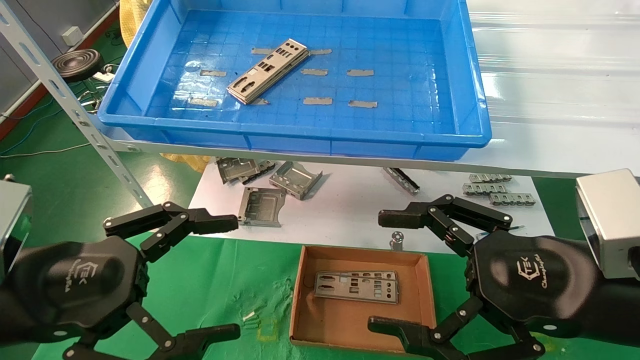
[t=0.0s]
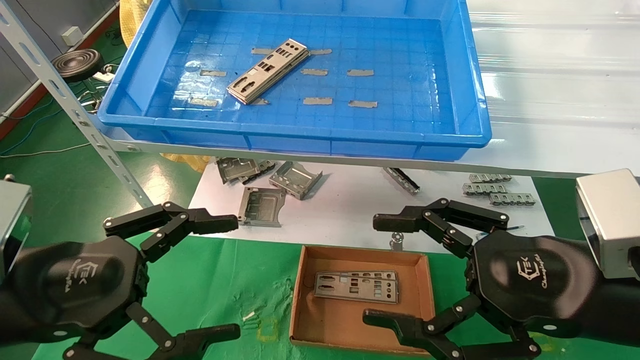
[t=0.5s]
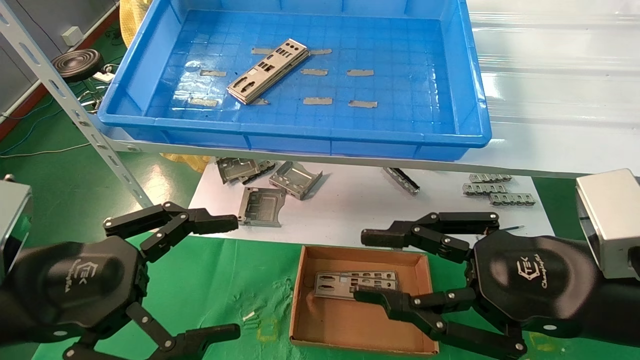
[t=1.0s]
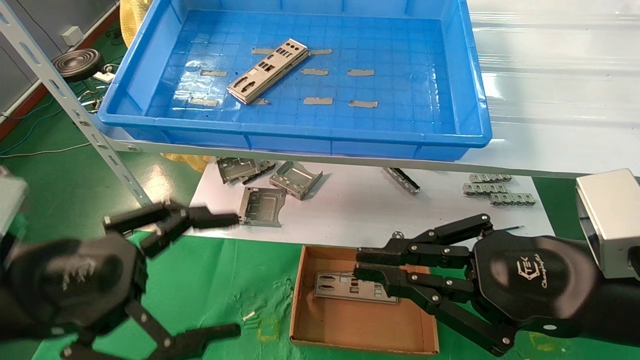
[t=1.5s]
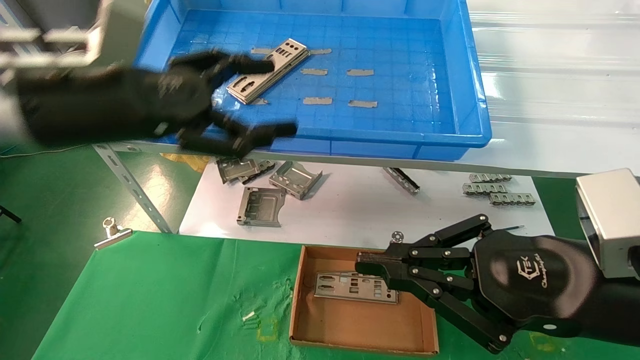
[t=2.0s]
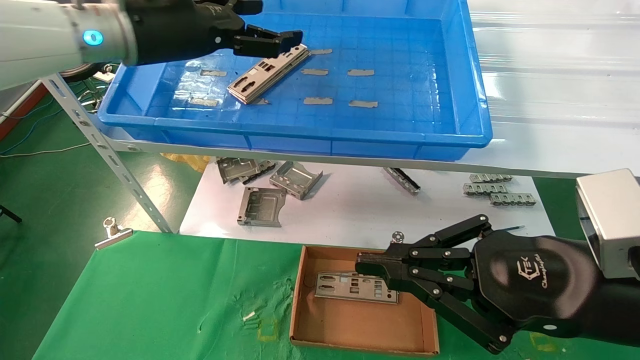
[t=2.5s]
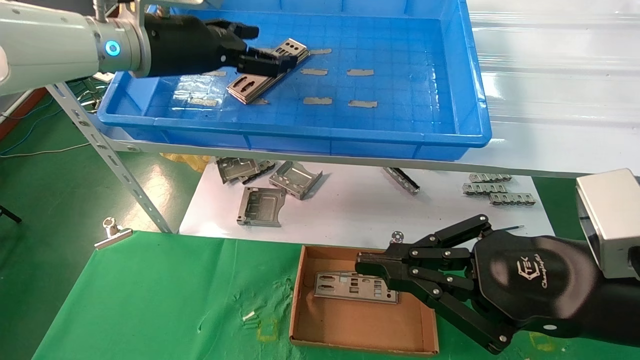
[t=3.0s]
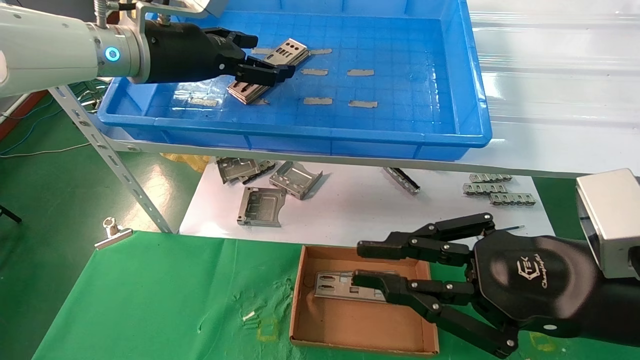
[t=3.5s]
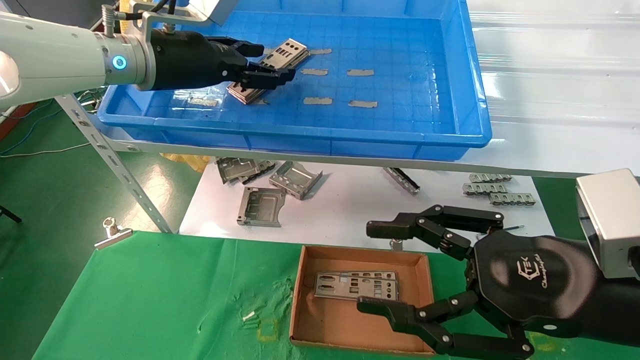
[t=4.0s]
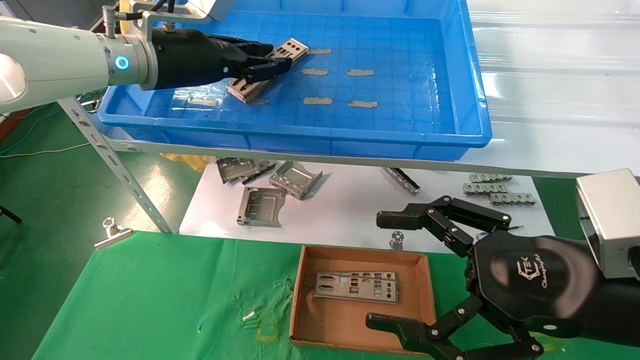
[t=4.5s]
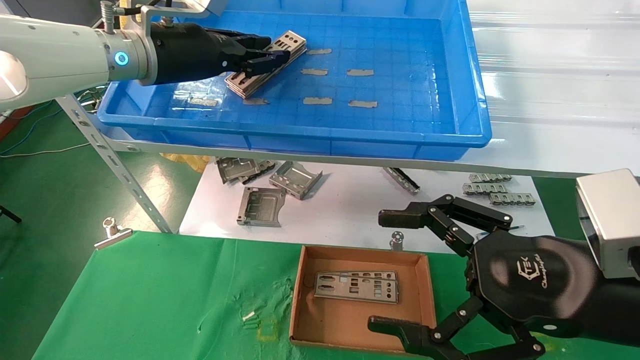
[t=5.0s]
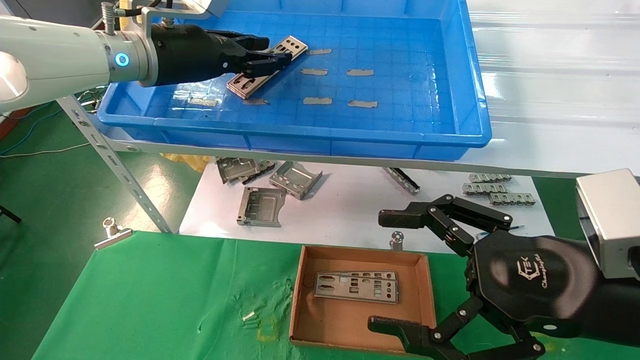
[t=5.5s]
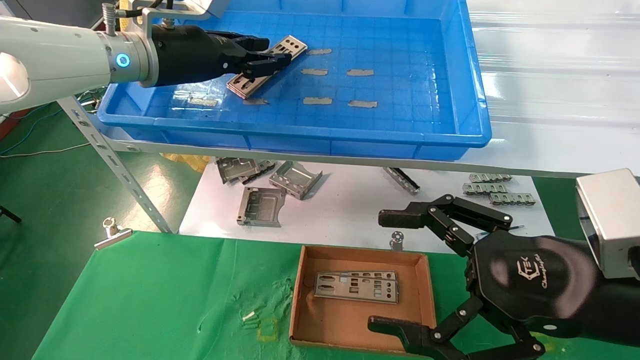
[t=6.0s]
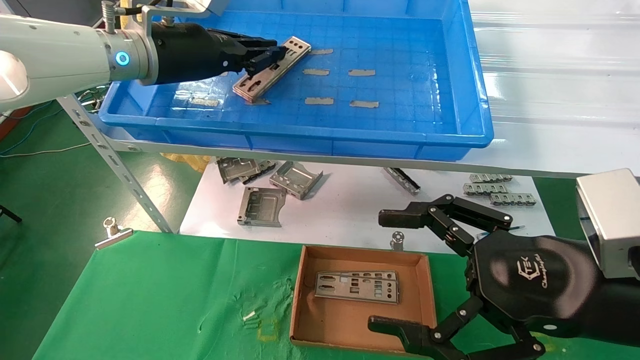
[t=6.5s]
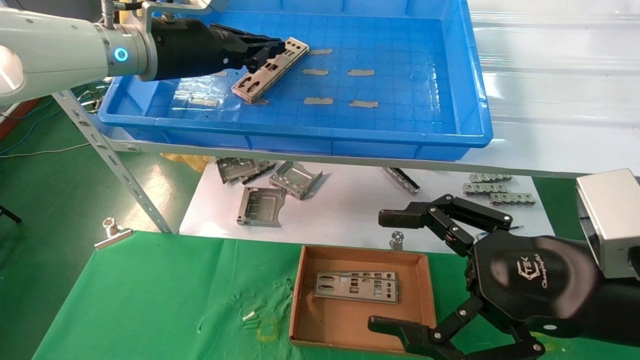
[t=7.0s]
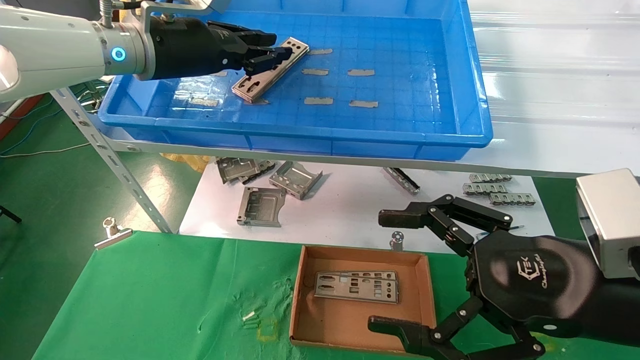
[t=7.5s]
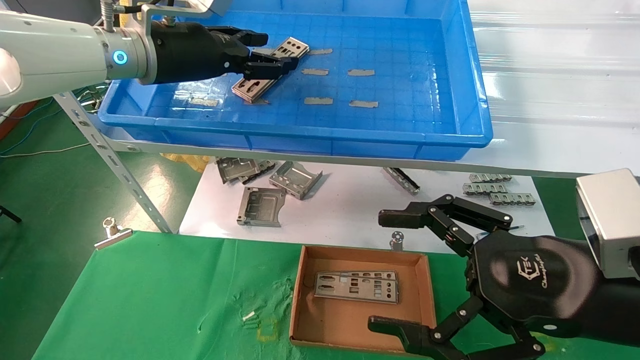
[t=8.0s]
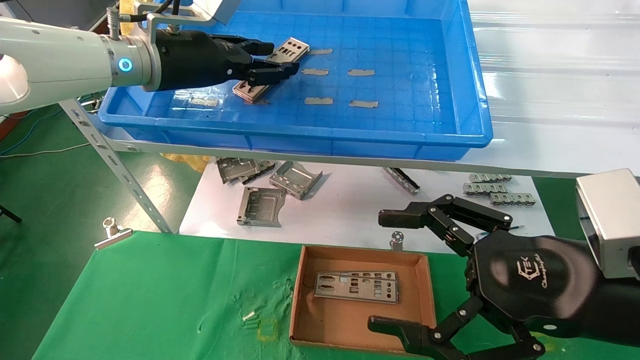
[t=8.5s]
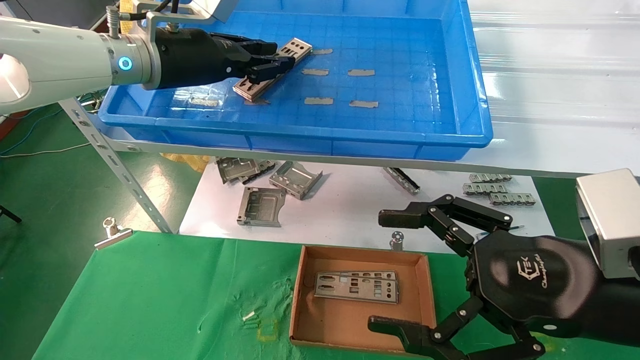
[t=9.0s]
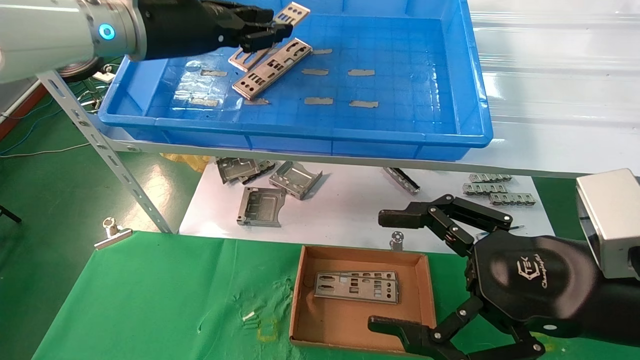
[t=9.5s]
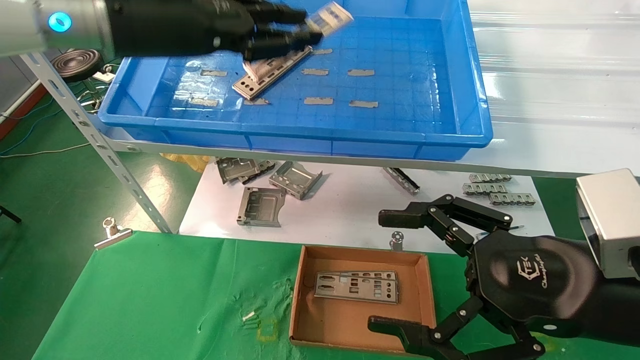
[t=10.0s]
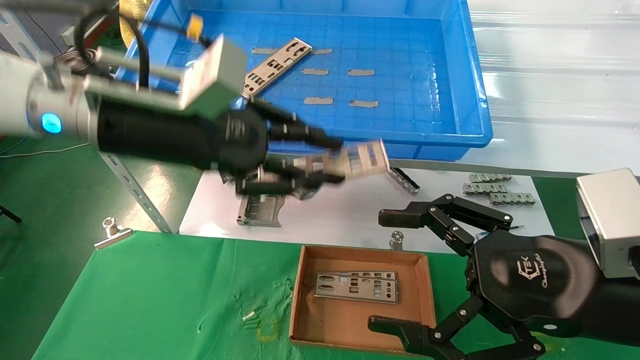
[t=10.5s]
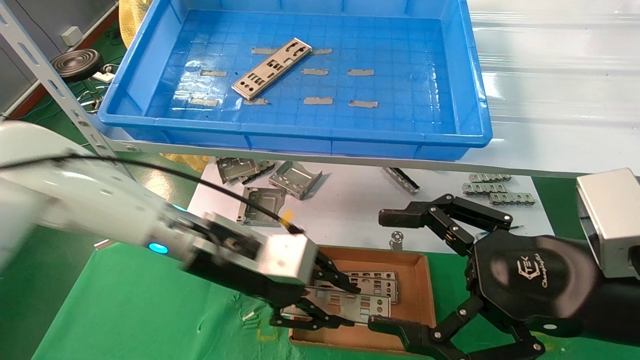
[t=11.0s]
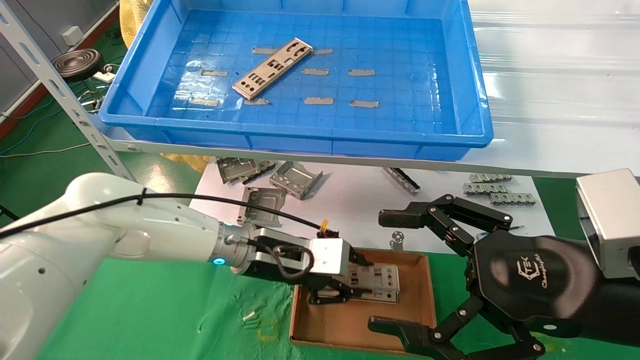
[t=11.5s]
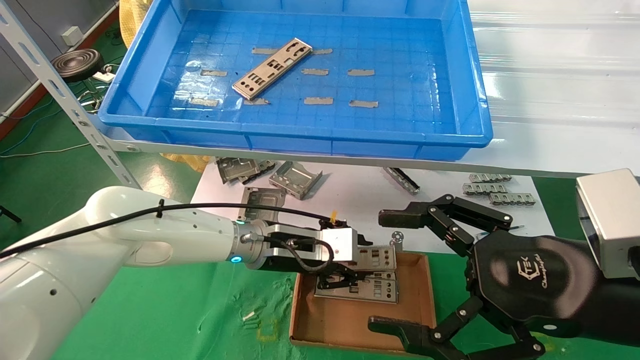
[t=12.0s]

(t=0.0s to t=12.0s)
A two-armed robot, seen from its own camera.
Task of the whole recording: pick up the parts on the tray and put them in the cardboard box.
Step, t=2.0s - t=9.0s: Pick up the IO bracket from the container box.
t=0.0s - t=2.0s: The right gripper closes, while the left gripper moves upward and forward, roughly 15 cm.
t=2.0s - t=4.0s: The left gripper heads forward, covering approximately 10 cm; the right gripper opens up.
t=4.0s - t=6.0s: The left gripper closes its fingers. The right gripper opens its fingers.
t=6.0s - t=8.0s: The left gripper closes, then opens again.
t=8.0s - t=10.0s: The left gripper moves backward, some 5 cm.
t=10.0s - t=12.0s: The left gripper moves downward and to the right, about 30 cm.

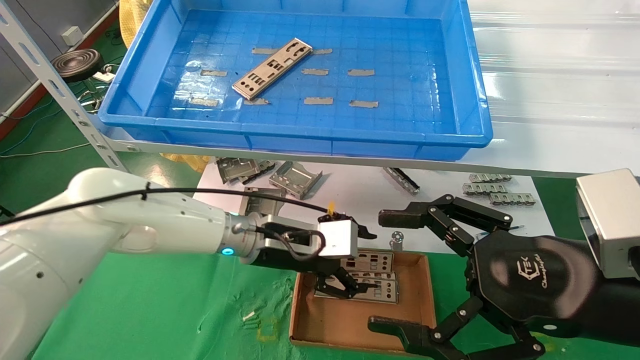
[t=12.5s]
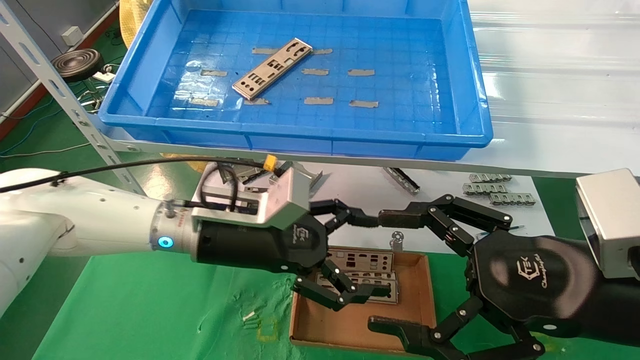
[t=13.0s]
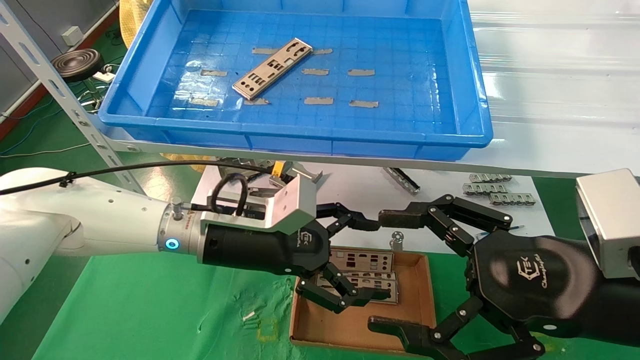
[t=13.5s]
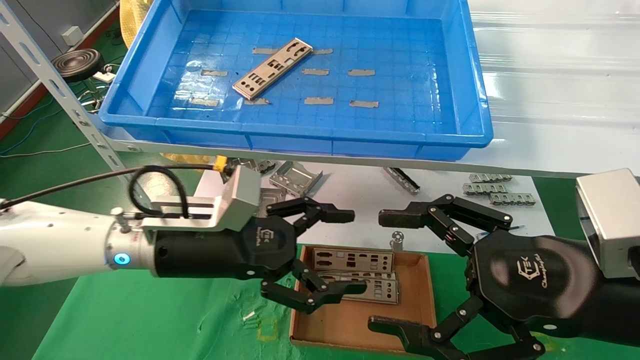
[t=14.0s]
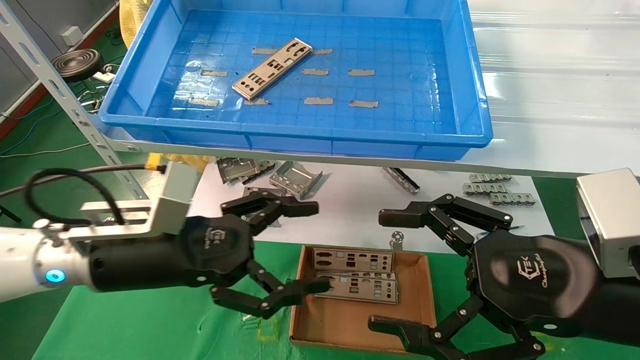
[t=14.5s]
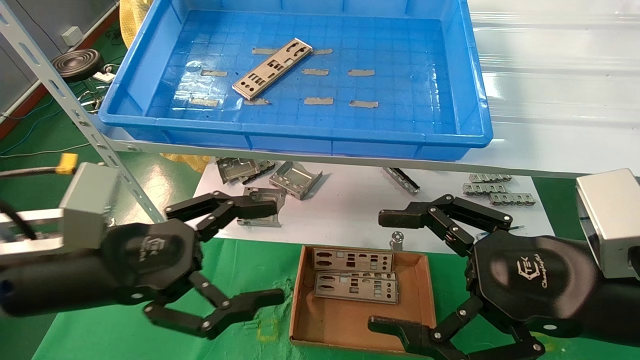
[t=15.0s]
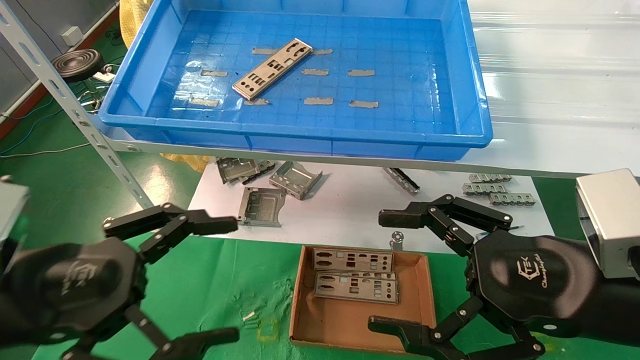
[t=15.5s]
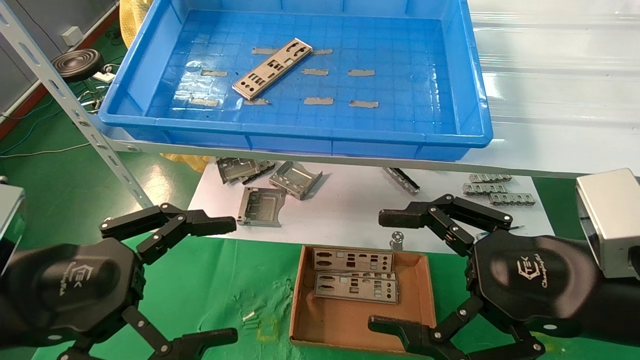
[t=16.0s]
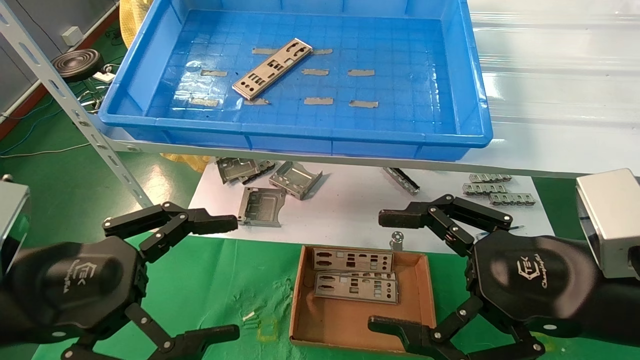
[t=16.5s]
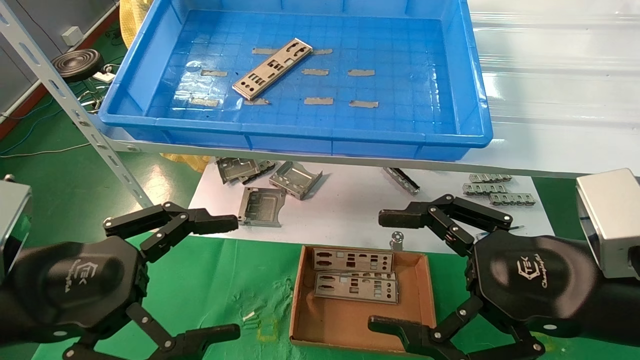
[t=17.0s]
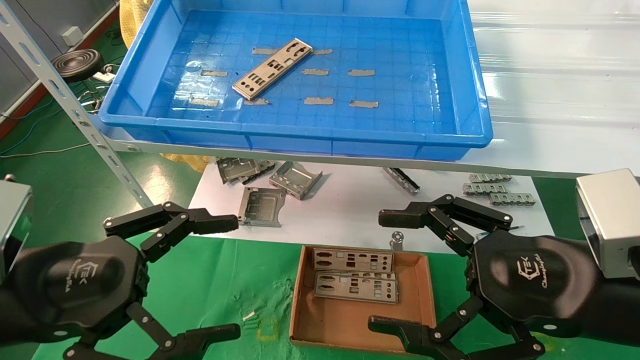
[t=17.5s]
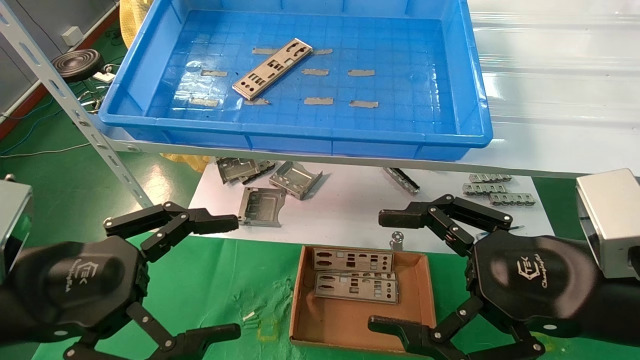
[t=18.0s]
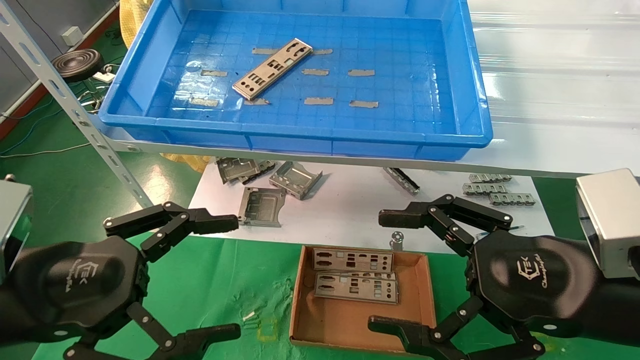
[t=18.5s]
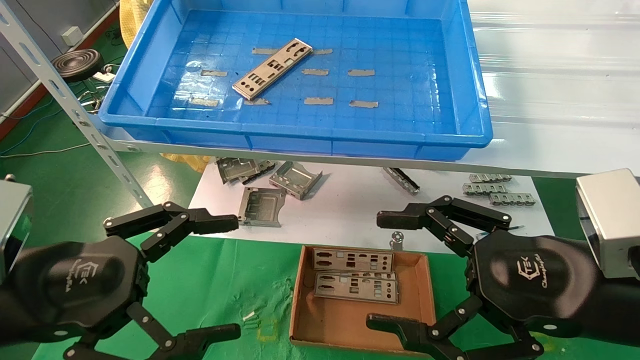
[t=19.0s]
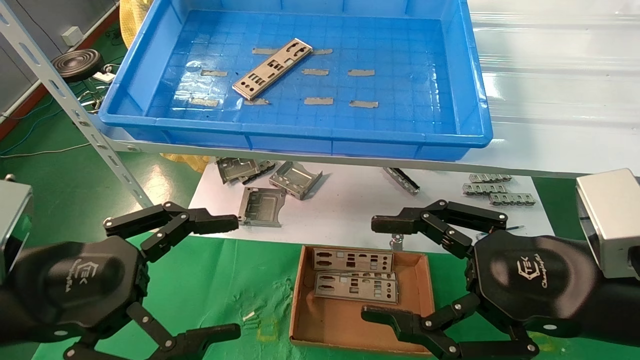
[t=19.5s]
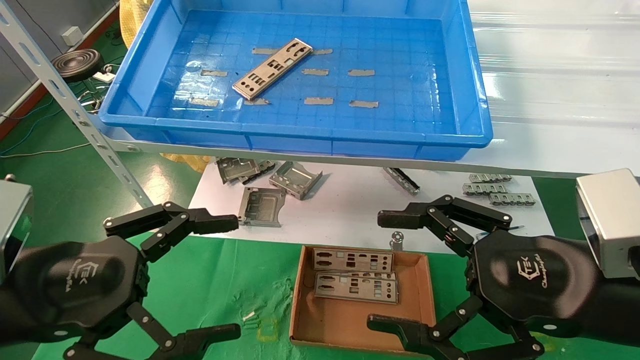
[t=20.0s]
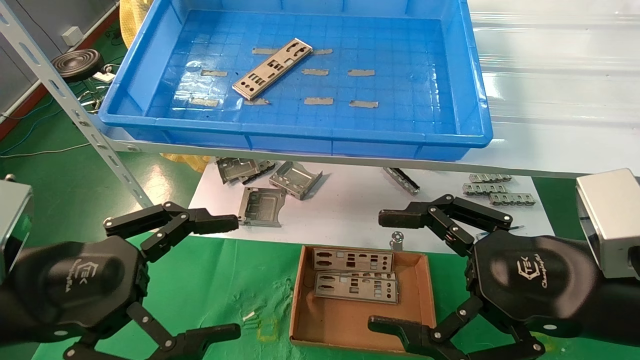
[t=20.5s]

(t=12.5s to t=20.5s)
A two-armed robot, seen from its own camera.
Task of the whole recording: pick up the parts on the tray and put them in the cardboard box.
t=12.5s - t=14.5s: The left gripper goes some 15 cm to the left and backward, and opens.
t=14.5s - t=16.5s: The left gripper moves backward and to the left, roughly 15 cm.
t=16.5s - t=20.5s: The two grippers keep their place.
